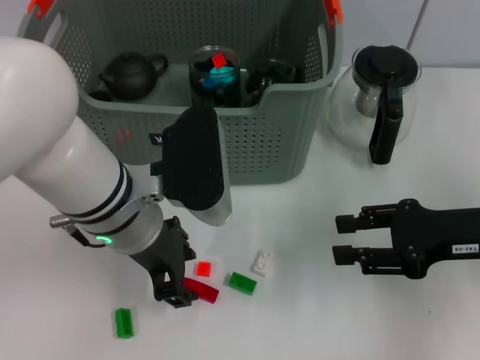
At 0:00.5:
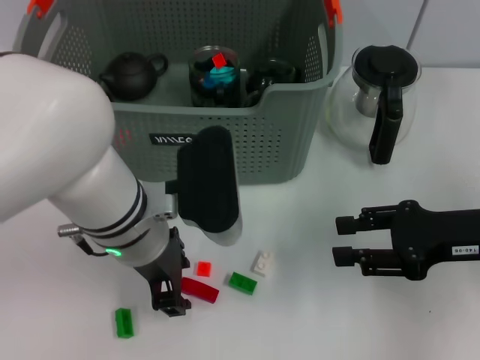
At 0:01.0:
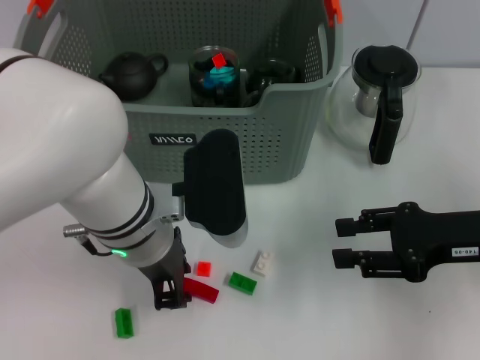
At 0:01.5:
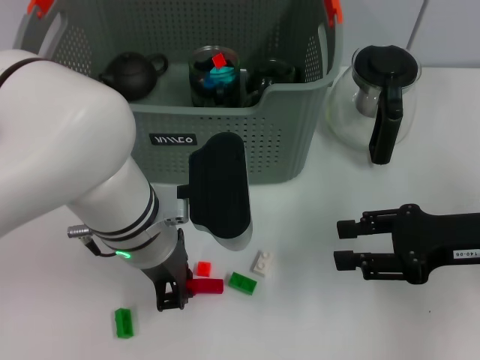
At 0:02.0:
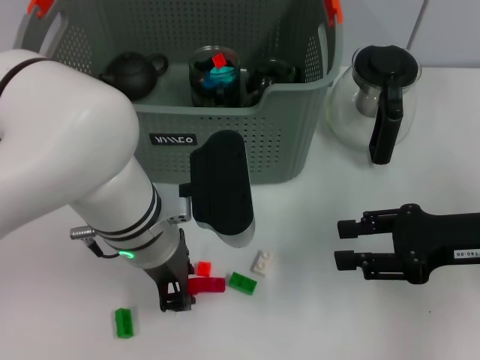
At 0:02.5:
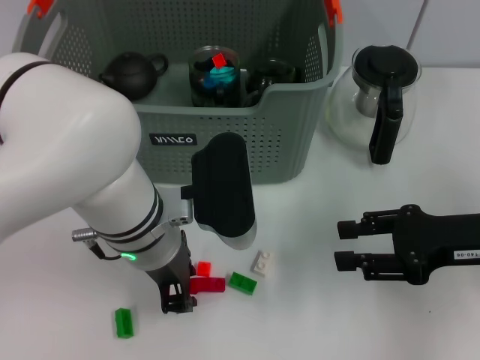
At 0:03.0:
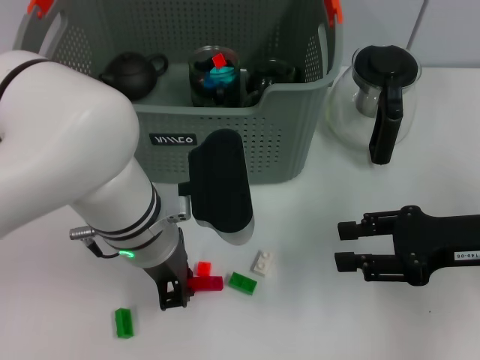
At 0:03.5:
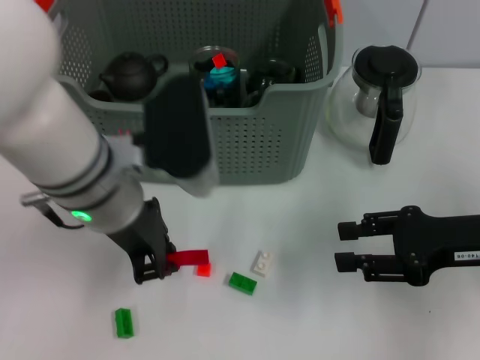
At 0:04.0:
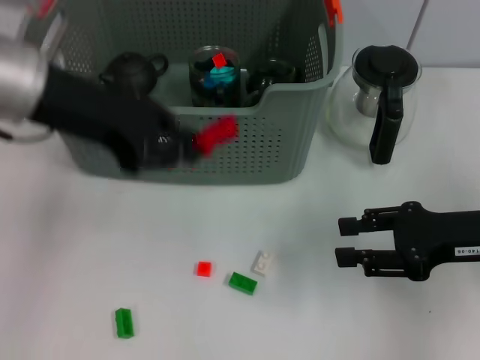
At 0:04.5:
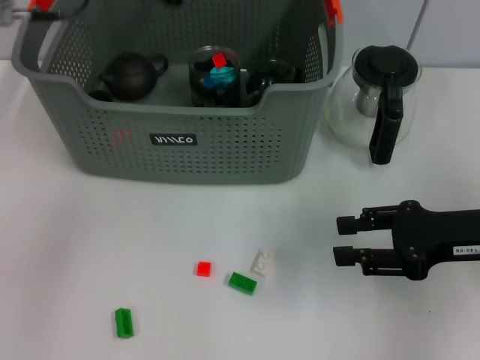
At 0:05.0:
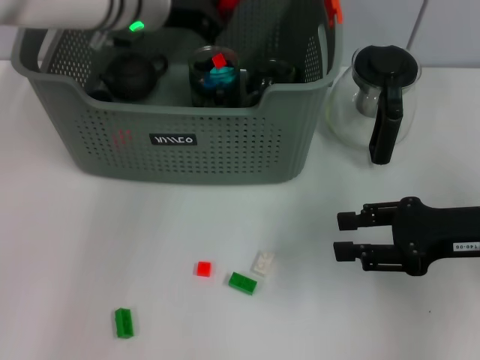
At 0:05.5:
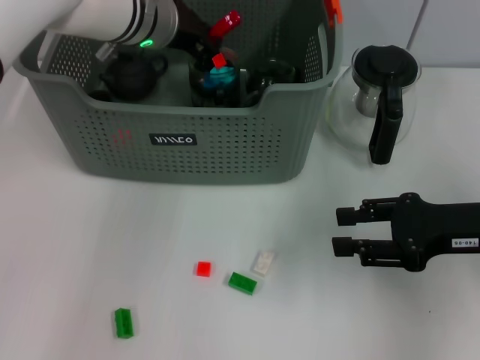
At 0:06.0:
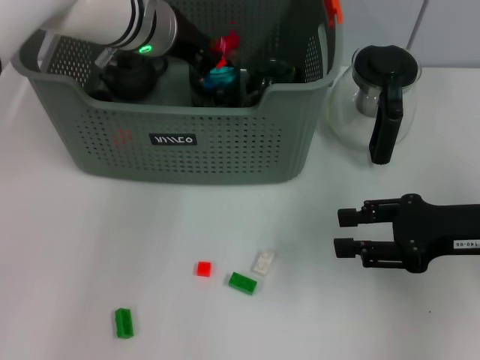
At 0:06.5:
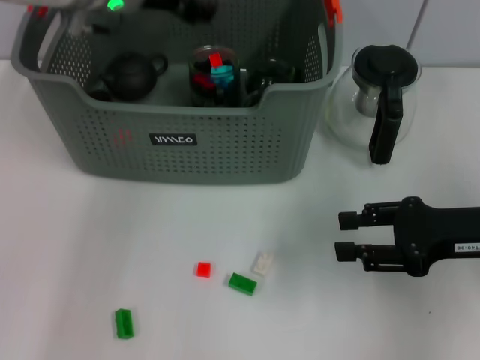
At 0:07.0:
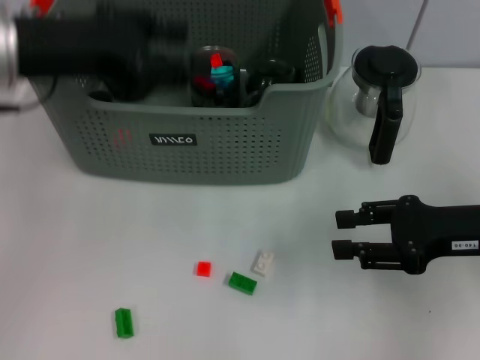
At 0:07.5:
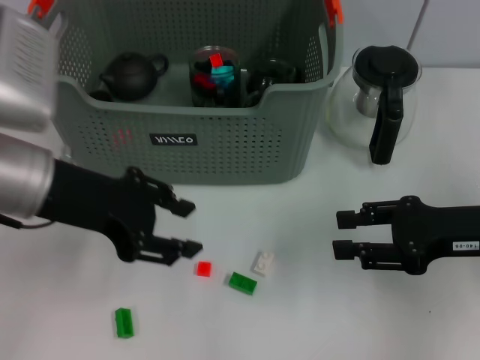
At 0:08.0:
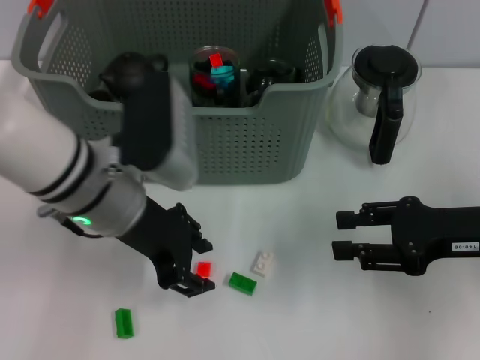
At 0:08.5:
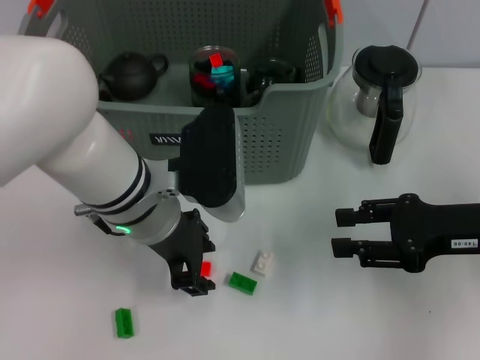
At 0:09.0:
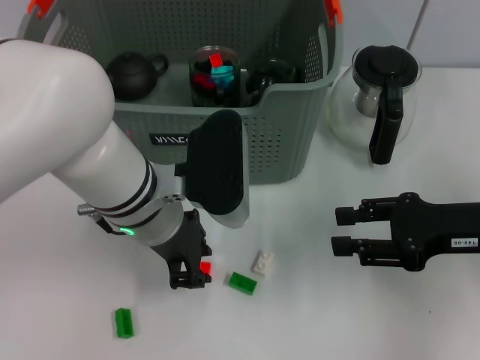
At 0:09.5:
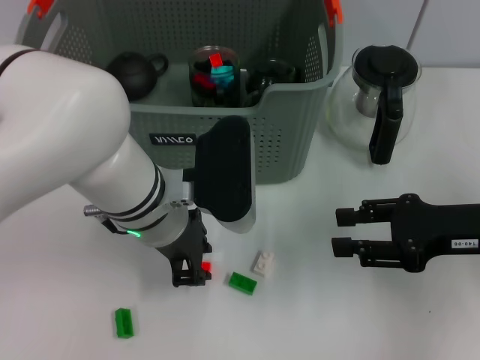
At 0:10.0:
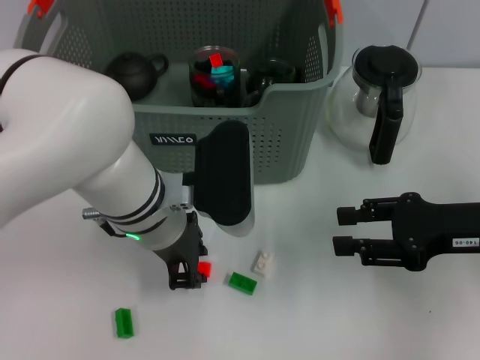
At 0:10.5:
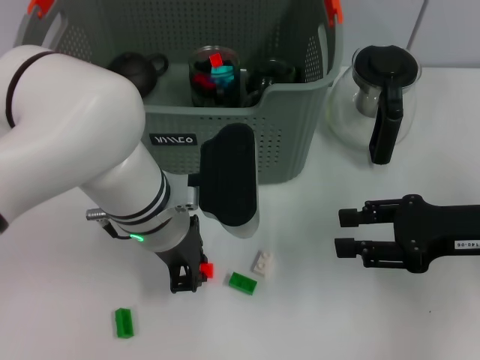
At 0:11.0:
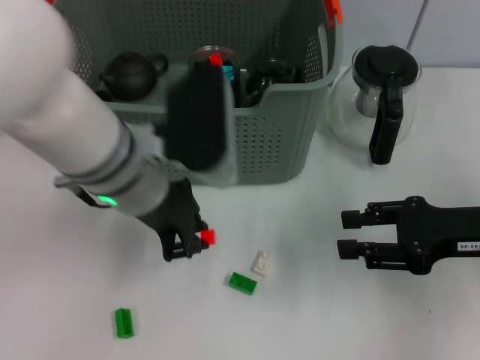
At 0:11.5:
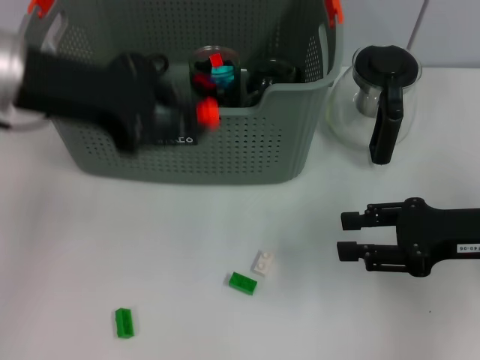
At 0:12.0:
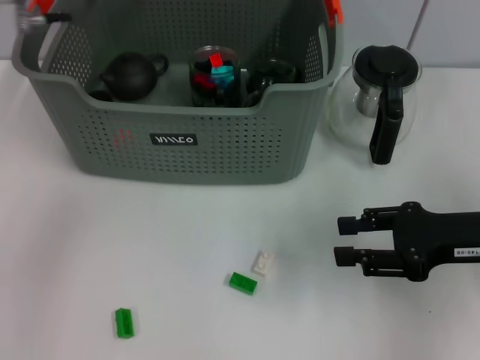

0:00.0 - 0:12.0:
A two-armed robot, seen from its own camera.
Task of the whole recording: pick up the teacup on the table and place it into the storage bin, pick up the block on the table and place it into the storage bin.
Step, 0:02.0 - 0:06.0: Place the red block in the storage box with left gripper.
Step, 0:06.5 - 0:10.0: Grasp the orange block with left gripper.
0:00.0 - 0:02.0: The left gripper closes up.
0:02.0 - 0:04.0: The left gripper moves upward and to the left, roughly 15 cm.
0:04.0 - 0:06.0: The left gripper shifts about 15 cm forward, to the right and downward.
0:06.0 - 0:08.0: The left gripper goes roughly 15 cm backward, and opens.
0:08.0 - 0:10.0: The left gripper changes place by roughly 5 cm.
0:10.0 - 0:12.0: The left gripper moves upward, to the left and forward, roughly 20 cm.

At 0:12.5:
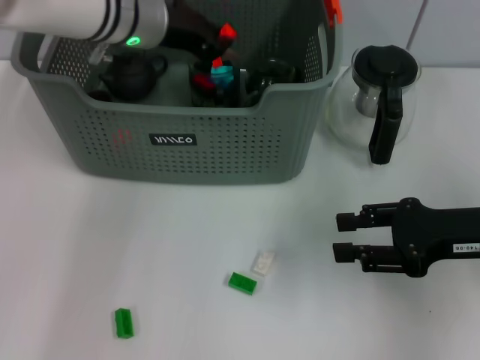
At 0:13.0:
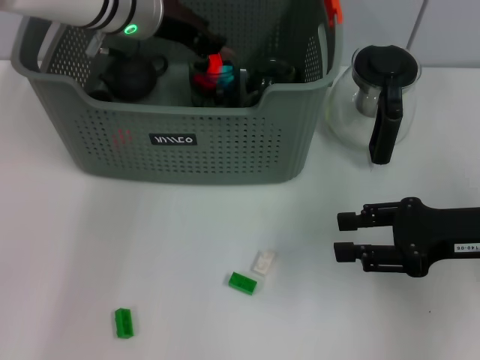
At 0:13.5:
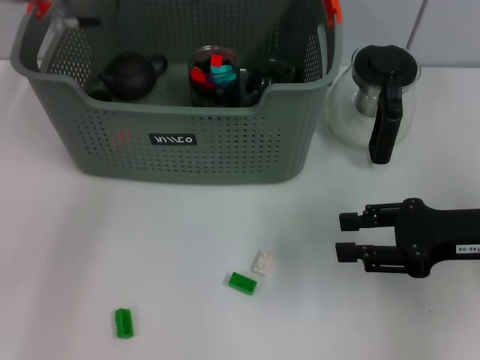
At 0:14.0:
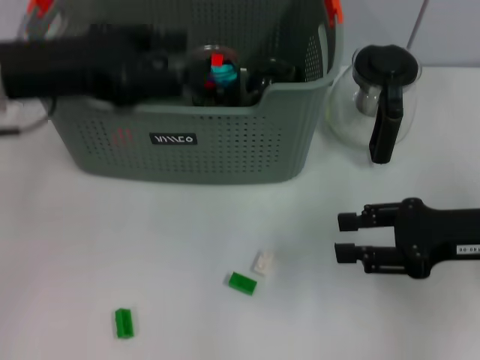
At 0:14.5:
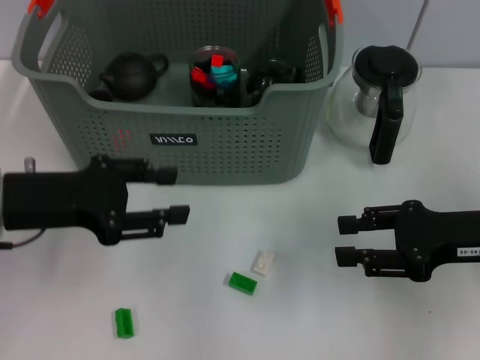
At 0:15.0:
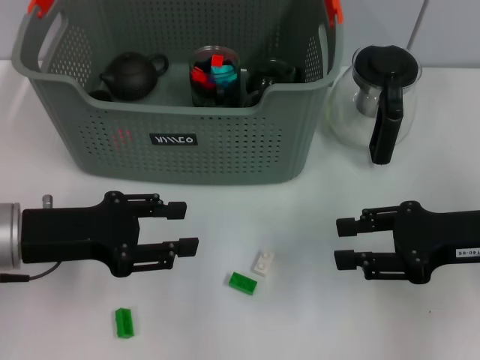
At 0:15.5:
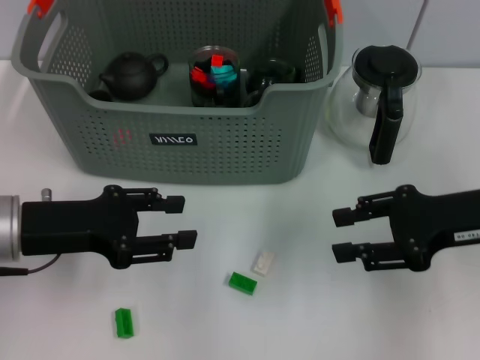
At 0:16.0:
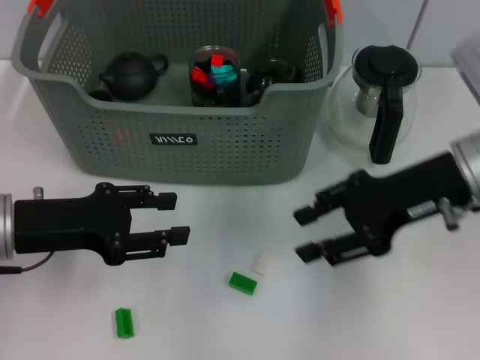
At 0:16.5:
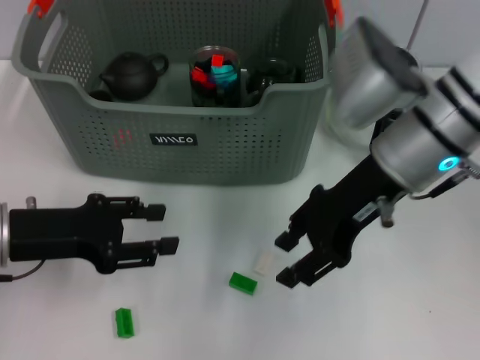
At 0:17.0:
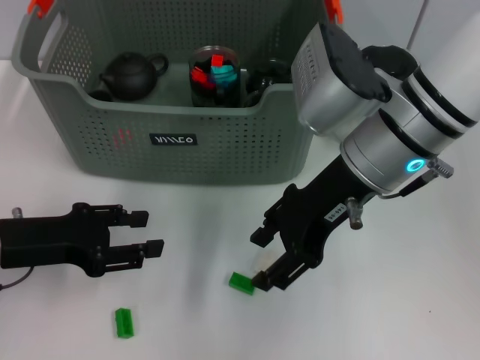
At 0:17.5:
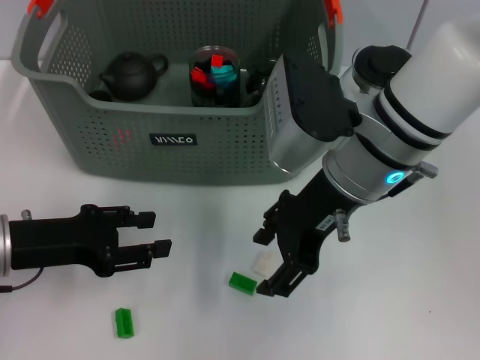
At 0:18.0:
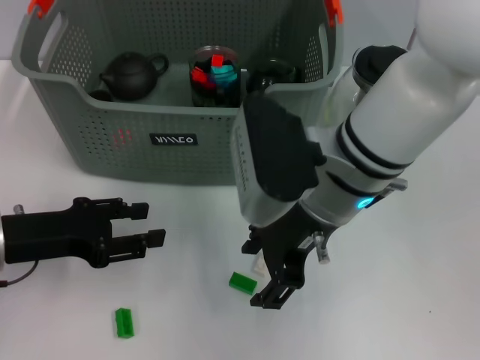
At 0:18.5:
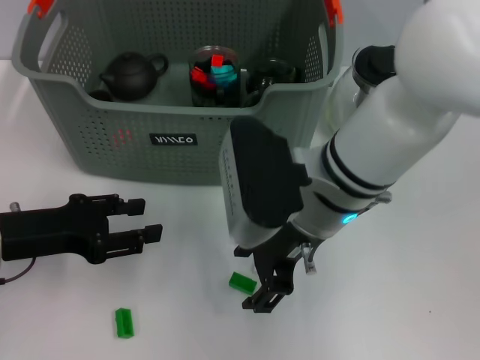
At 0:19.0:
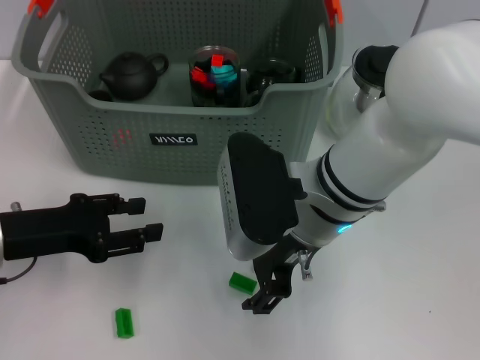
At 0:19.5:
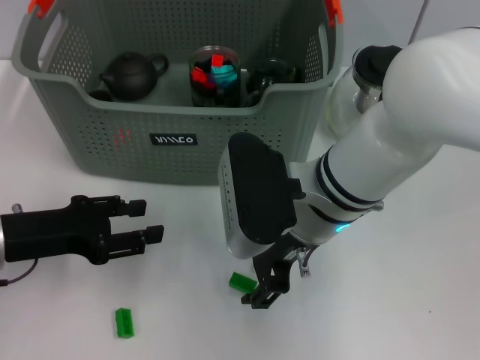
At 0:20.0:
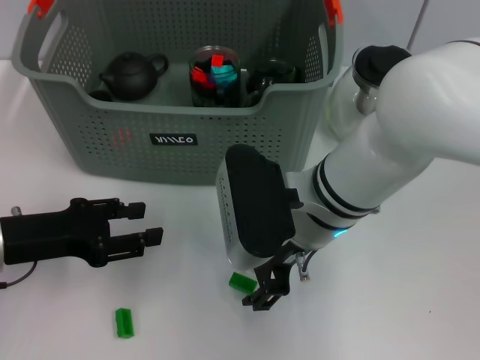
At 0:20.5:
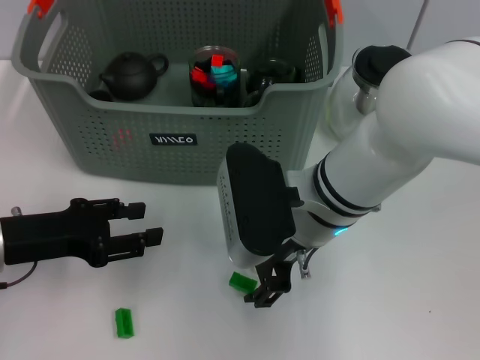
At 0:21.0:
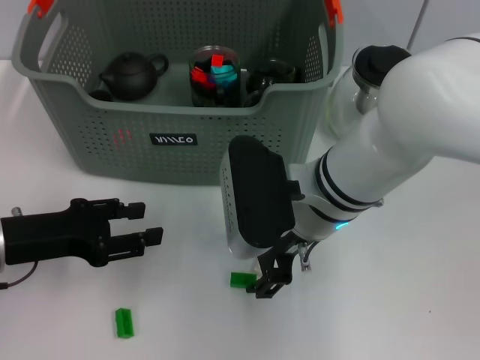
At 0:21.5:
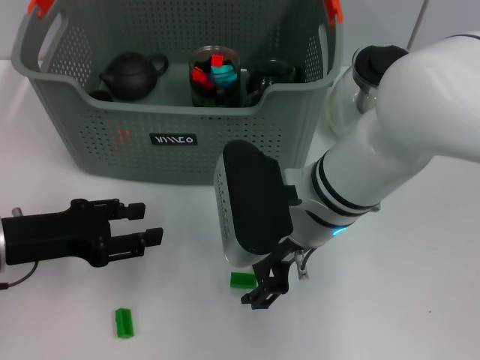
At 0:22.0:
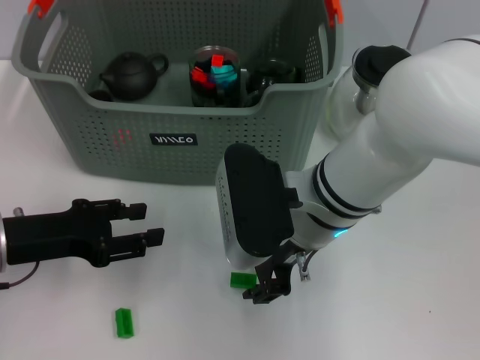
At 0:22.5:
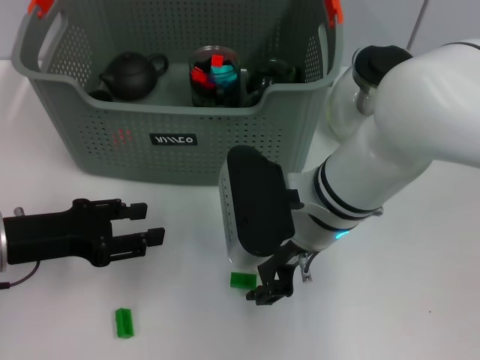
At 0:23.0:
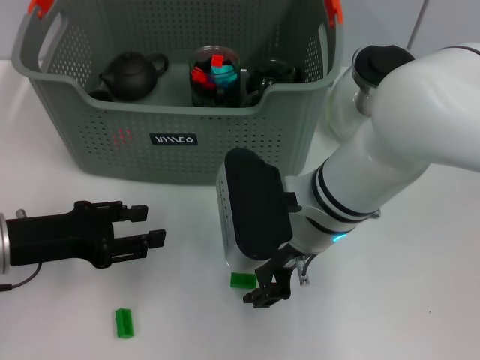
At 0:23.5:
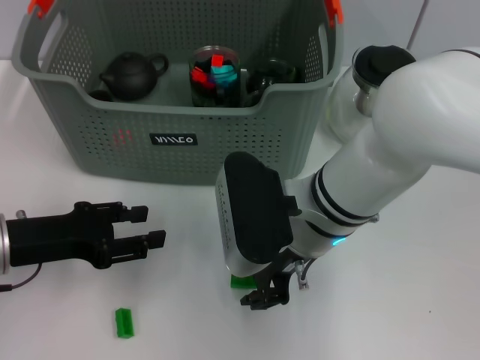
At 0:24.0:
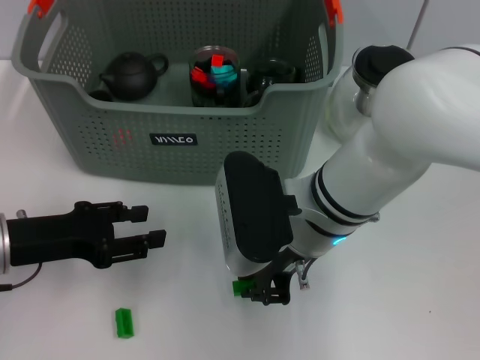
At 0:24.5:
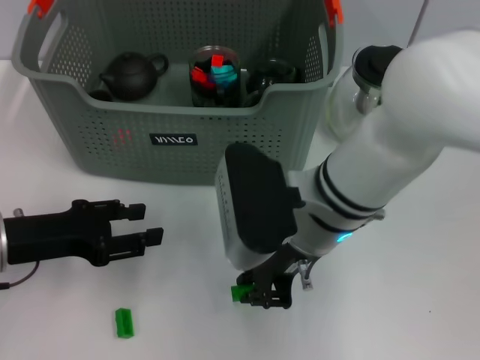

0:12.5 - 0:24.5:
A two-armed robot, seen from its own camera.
Task of the whole recording: pick up the teacup on the table and place it into the storage bin, pick up the block on the table and place it into the storage bin.
Step, 0:13.5 - 0:24.0: Grasp the green block with right gripper.
0:12.5 - 0:14.5: The left gripper is displaced backward and to the left by some 20 cm, and opens its fingers.
0:14.5 - 0:16.5: The right gripper travels to the left, upward and forward by roughly 15 cm.
0:16.5 - 0:18.5: The right gripper travels to the left by about 10 cm.
0:18.5 - 0:20.5: There are only small adjustments of the grippers.
0:20.5 - 0:22.5: Neither gripper changes place.
0:22.5 - 0:24.5: The right gripper closes.

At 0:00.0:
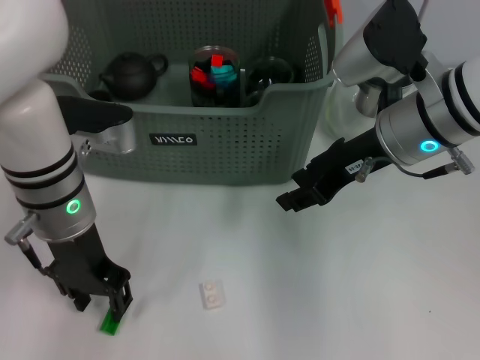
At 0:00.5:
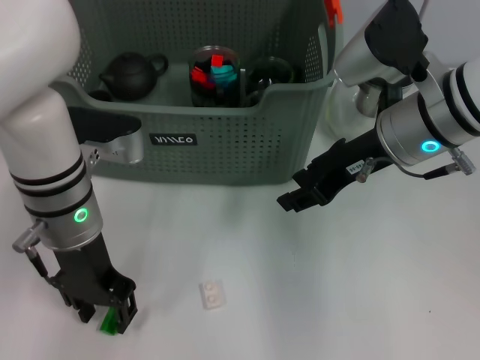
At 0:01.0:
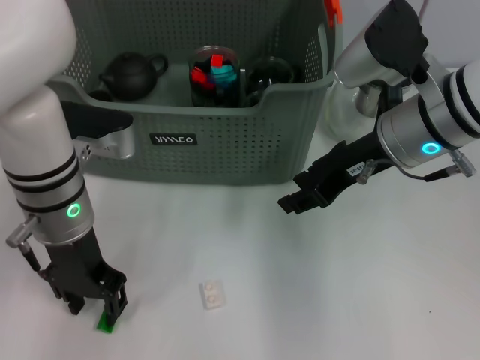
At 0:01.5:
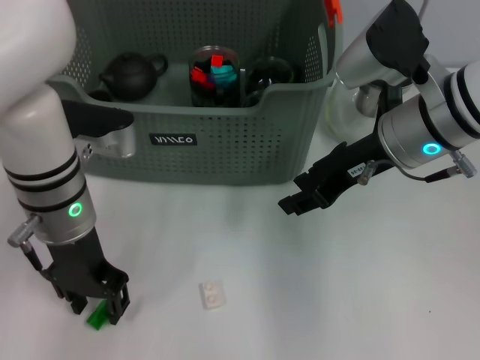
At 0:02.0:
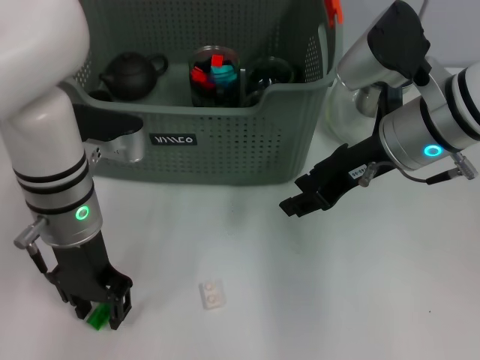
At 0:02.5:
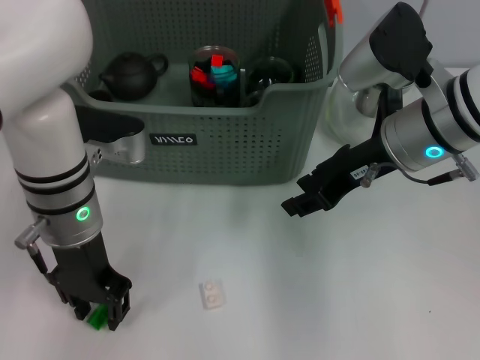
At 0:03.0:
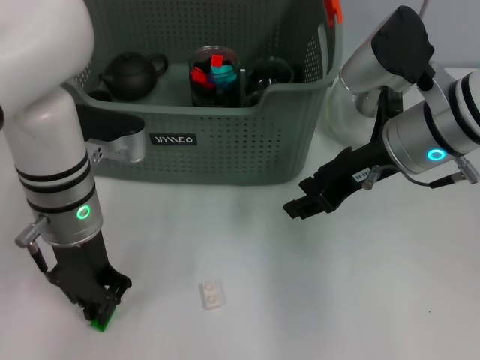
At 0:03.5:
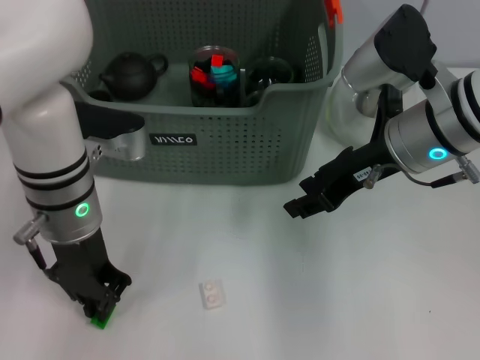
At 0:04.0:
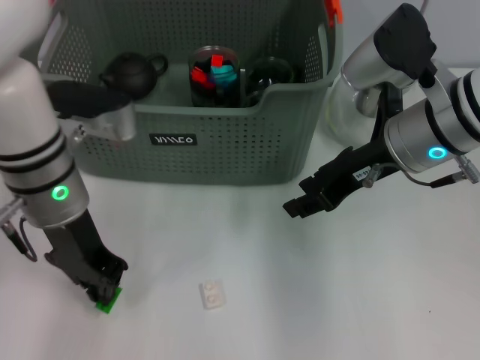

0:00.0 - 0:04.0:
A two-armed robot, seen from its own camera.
Task of the whole recording: pick up the teacup on the table and place it into the storage bin, pick up the block on the table and place it into the storage bin.
Step, 0:00.0 - 0:03.0: Grasp the green block with left gripper.
0:00.0 - 0:02.0: Both grippers stay put.
0:02.0 - 0:04.0: The left gripper closes.
